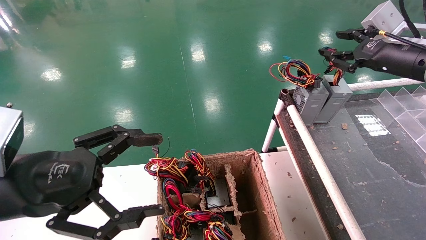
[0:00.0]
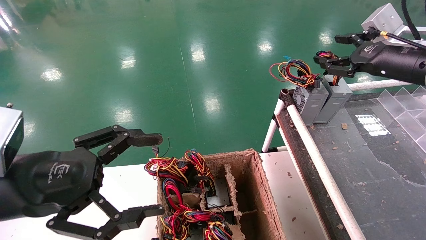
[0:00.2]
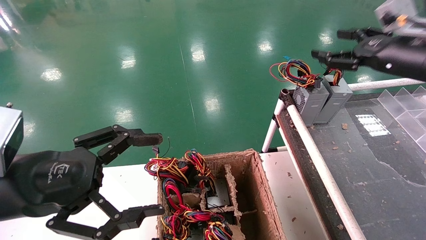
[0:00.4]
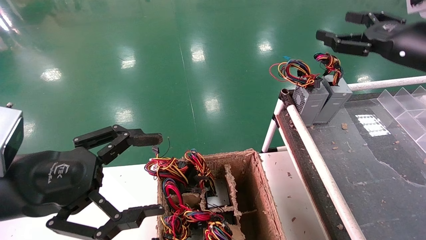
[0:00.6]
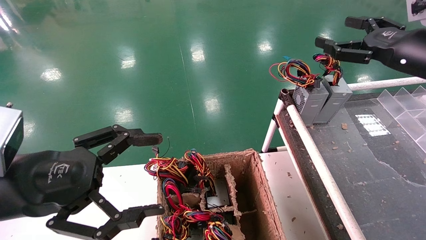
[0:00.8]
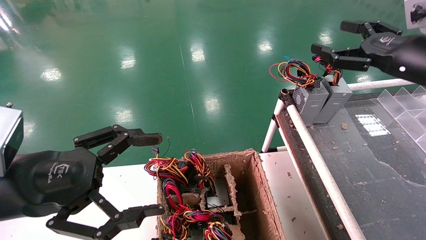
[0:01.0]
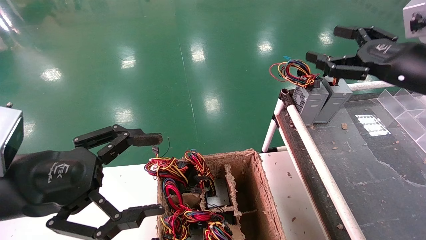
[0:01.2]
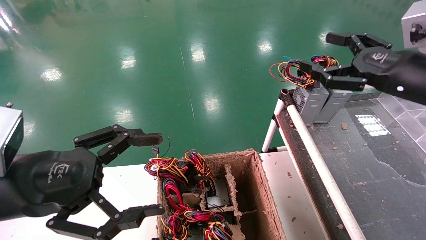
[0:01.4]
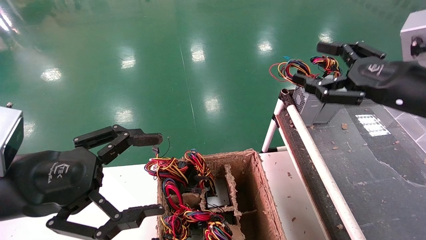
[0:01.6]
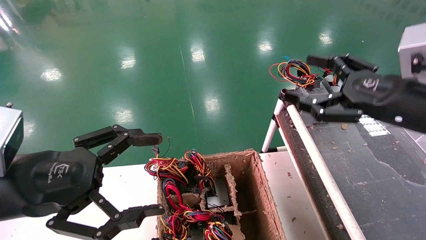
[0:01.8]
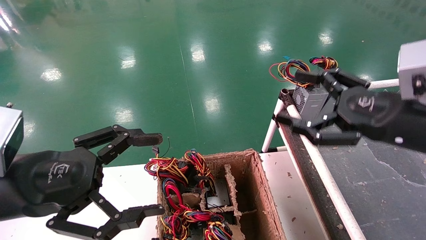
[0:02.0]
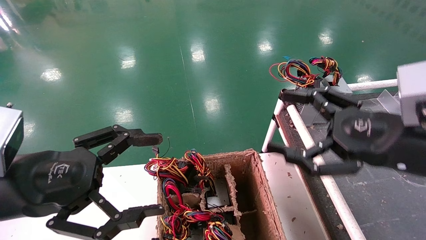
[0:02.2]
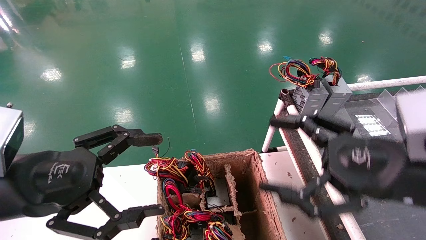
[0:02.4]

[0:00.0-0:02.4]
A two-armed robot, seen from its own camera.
0:00.0 to 0:01.2: The right gripper moves backward, approximately 5 cm, and opens up.
0:01.2 to 0:02.4: The right gripper shifts approximately 15 cm backward, downward and to the left.
